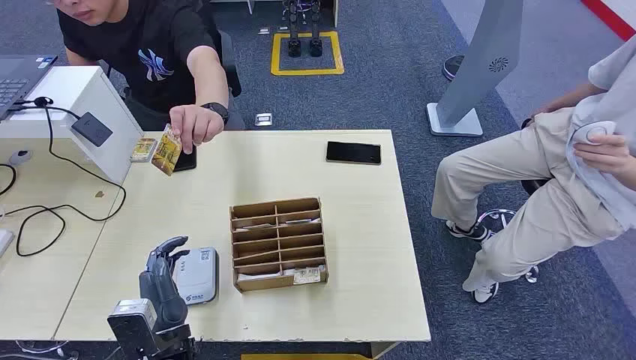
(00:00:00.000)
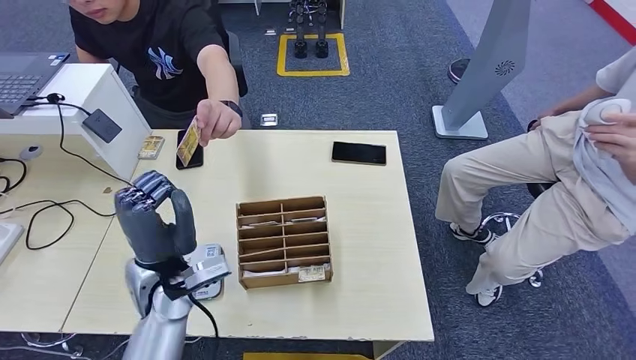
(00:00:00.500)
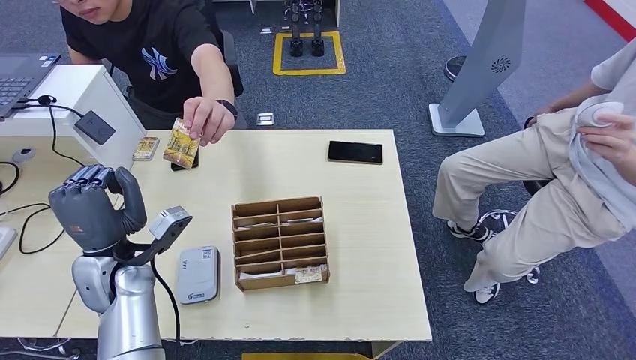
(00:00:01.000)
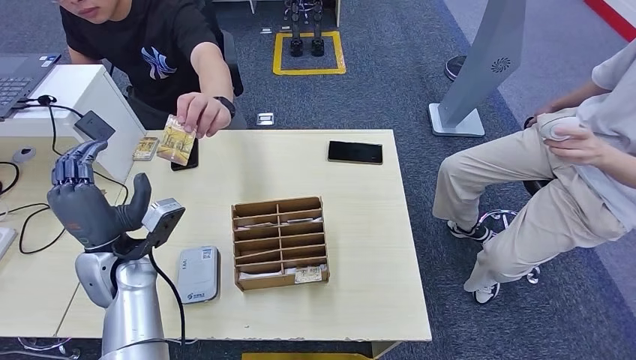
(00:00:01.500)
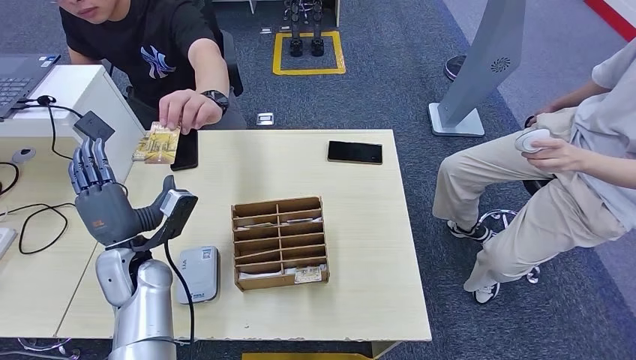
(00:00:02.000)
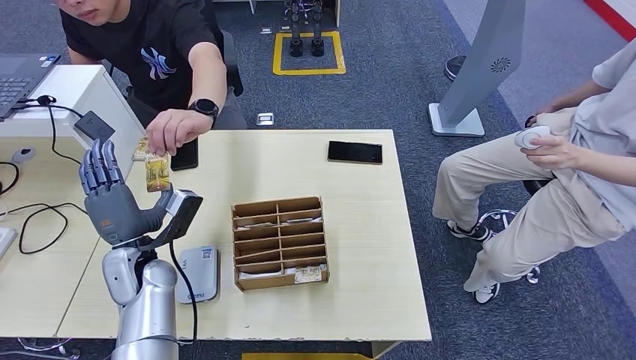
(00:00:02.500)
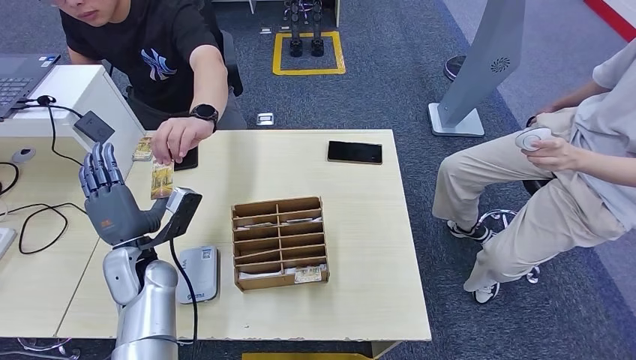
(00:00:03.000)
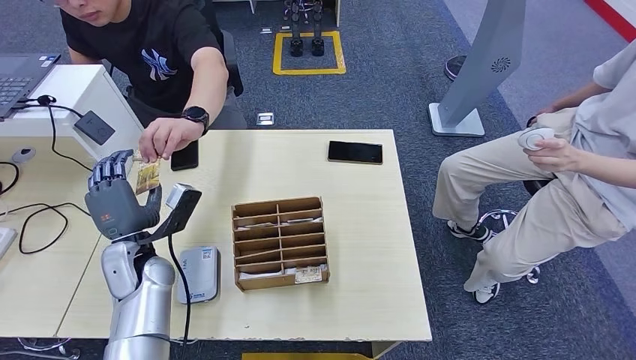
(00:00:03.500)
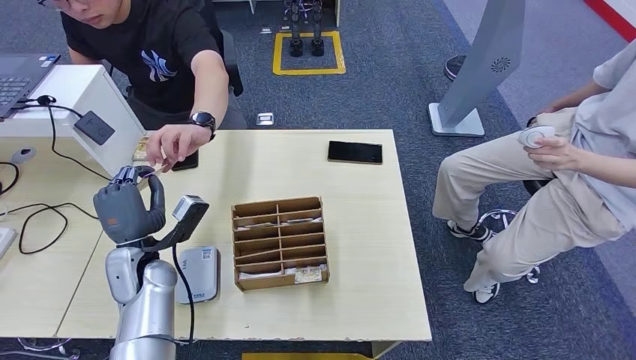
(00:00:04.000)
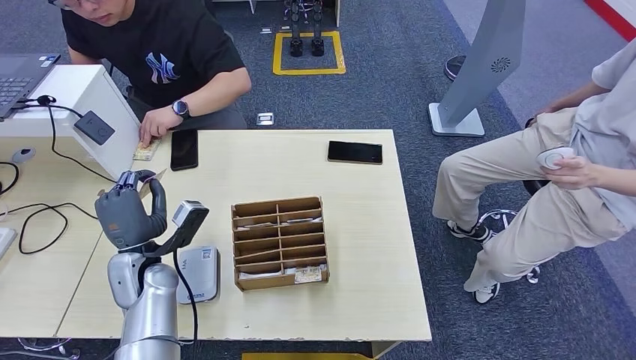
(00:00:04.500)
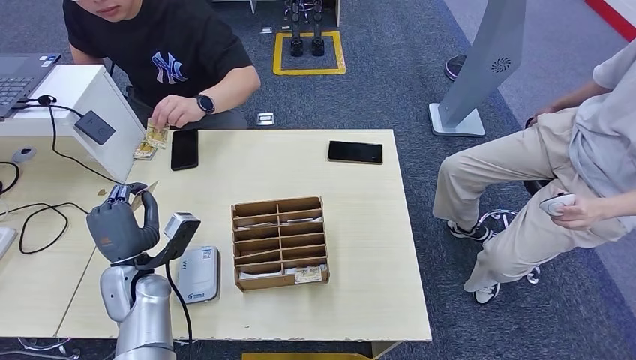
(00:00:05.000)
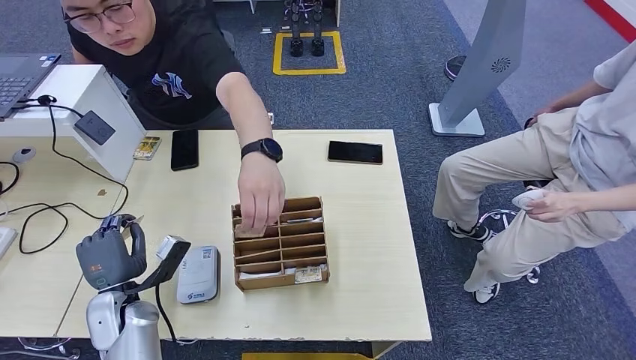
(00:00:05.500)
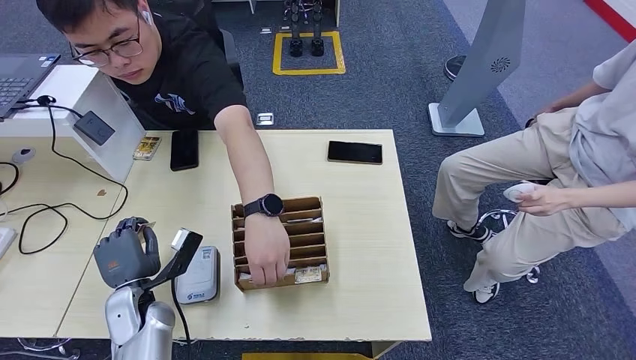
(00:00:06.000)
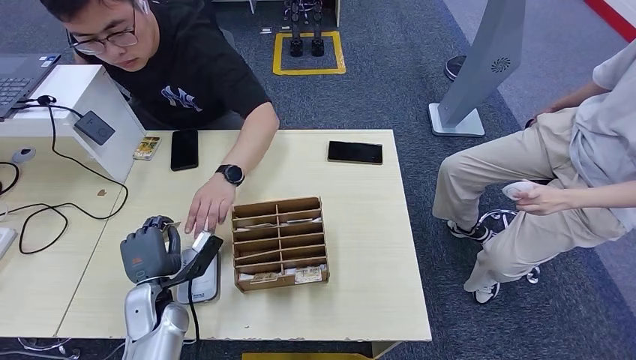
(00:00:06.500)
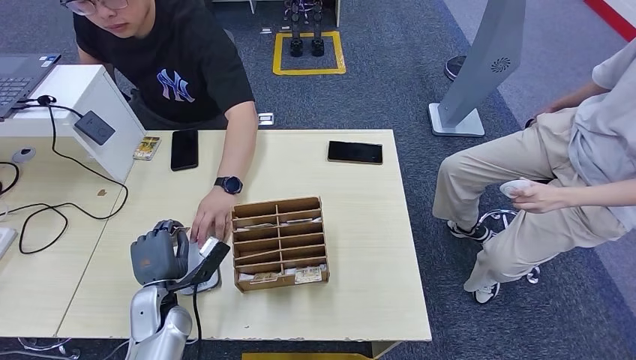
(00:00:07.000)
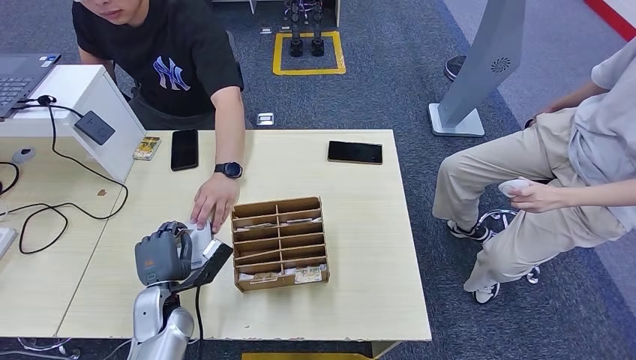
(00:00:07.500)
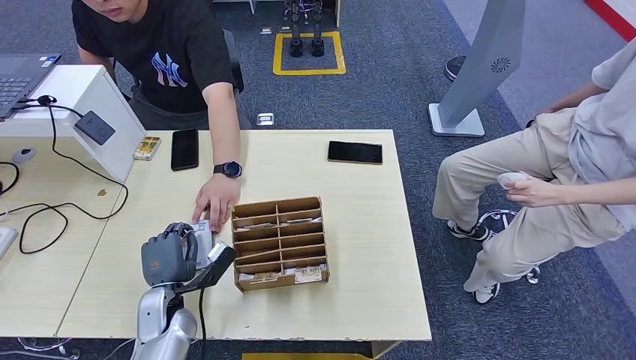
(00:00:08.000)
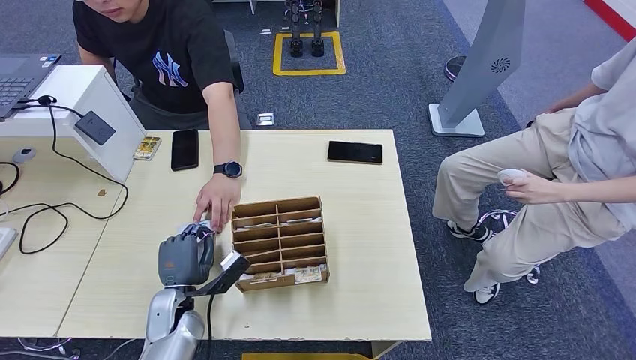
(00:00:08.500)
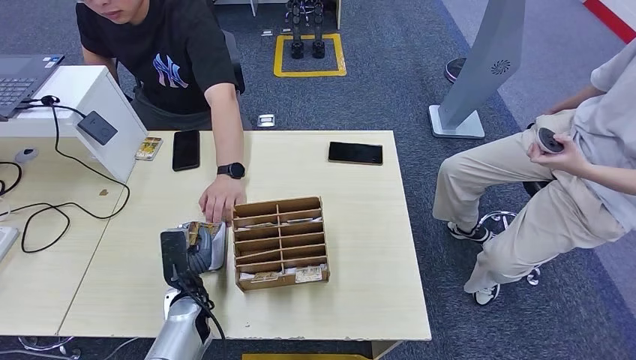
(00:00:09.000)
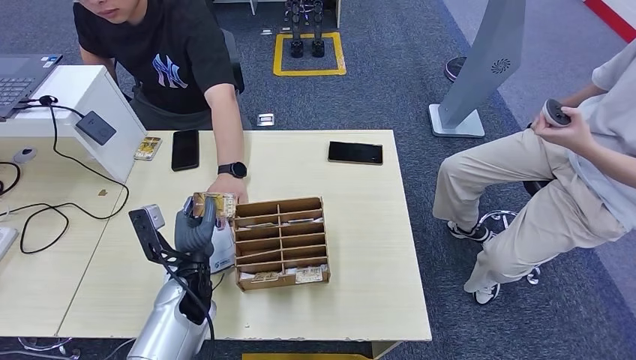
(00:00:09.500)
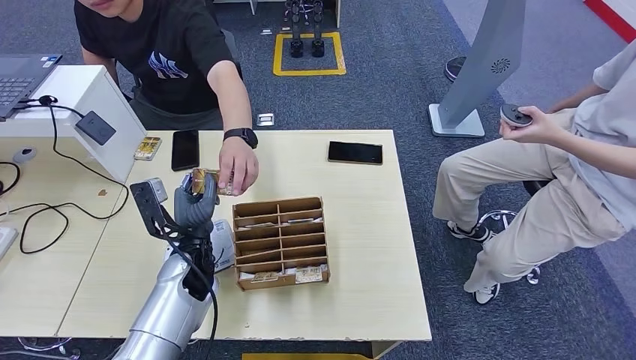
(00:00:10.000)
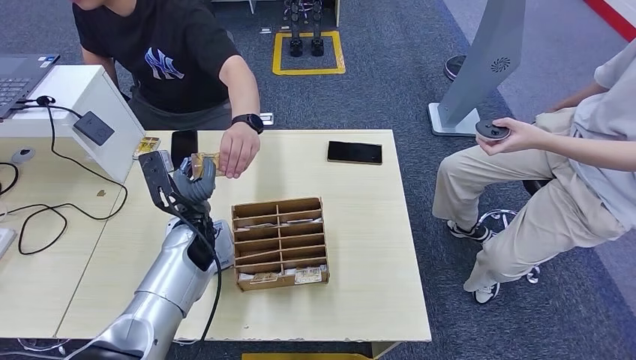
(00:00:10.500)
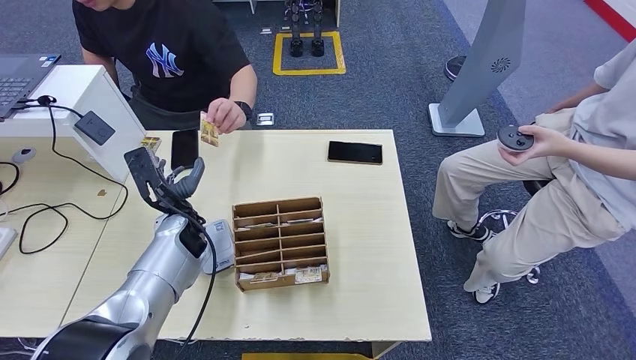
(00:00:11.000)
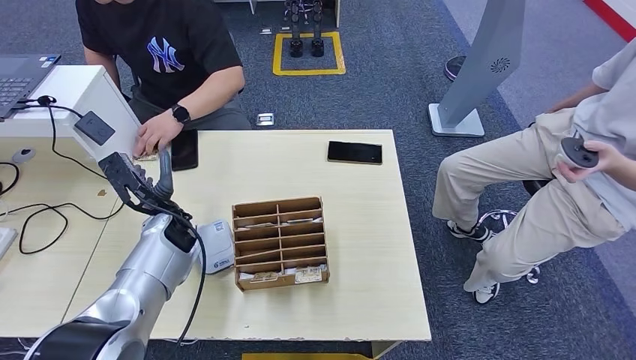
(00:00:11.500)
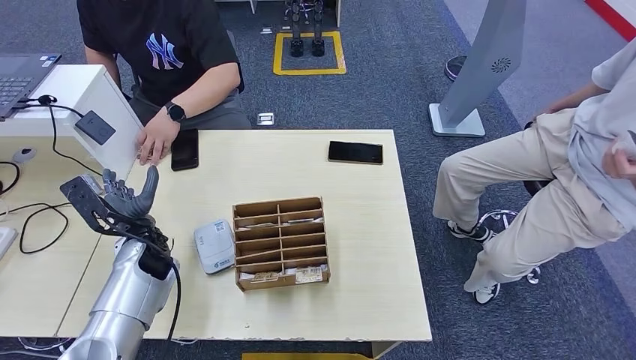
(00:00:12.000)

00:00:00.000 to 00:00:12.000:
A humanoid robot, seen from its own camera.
Step, 00:00:00.000 to 00:00:05.000: Take the ID card from the person's hand.
Step, 00:00:05.500 to 00:00:07.500: Place the ID card on the card reader.
Step, 00:00:08.000 to 00:00:10.500: Hand the ID card to the person.
00:00:02.000 to 00:00:04.000: The hands move only a little.
00:00:04.000 to 00:00:06.000: The left hand heads downward, covering approximately 5 cm.
00:00:06.000 to 00:00:08.000: The left hand shifts by approximately 5 cm.
00:00:08.000 to 00:00:10.000: The left hand is displaced upward, to the right and forward by about 10 cm.
00:00:10.000 to 00:00:12.000: The left hand goes some 10 cm to the left.

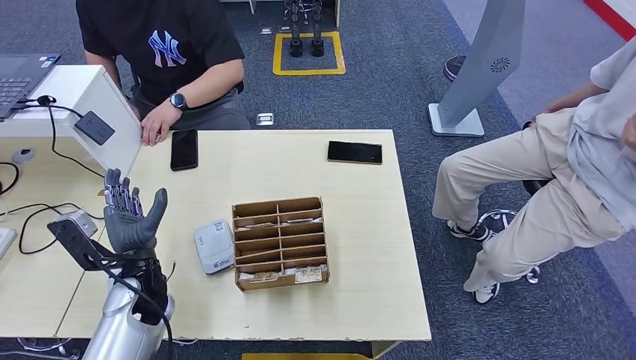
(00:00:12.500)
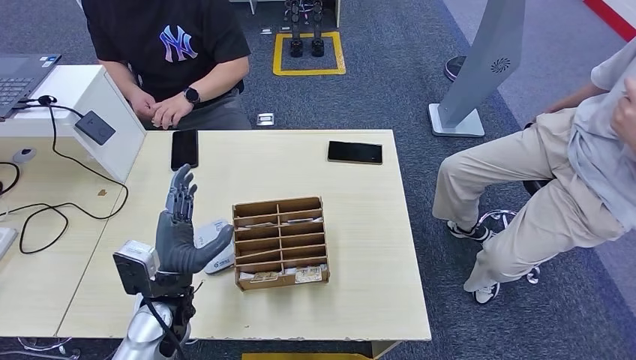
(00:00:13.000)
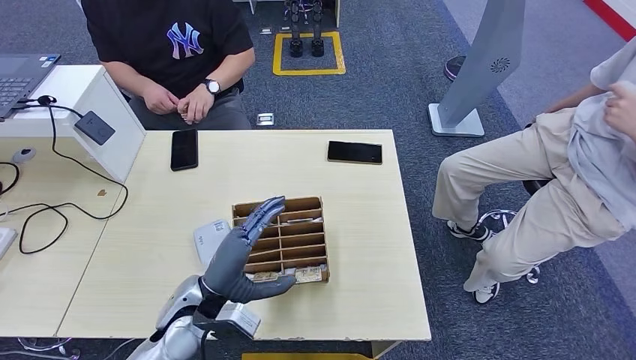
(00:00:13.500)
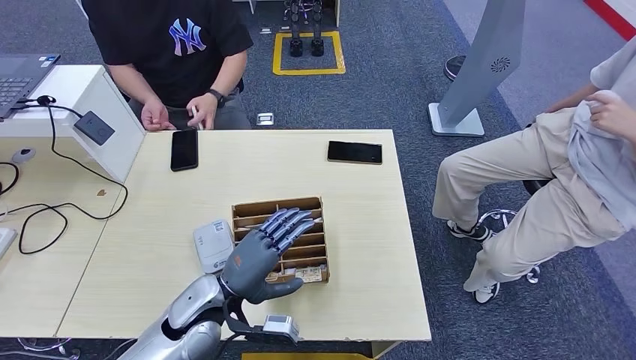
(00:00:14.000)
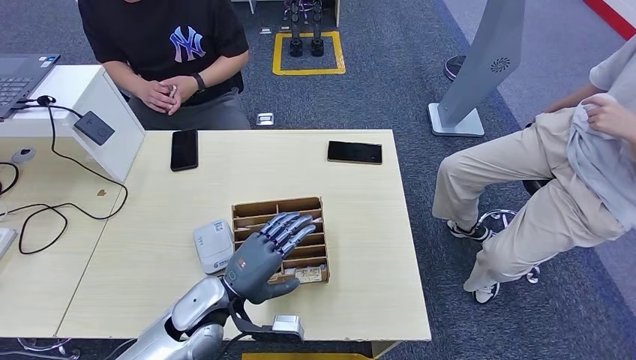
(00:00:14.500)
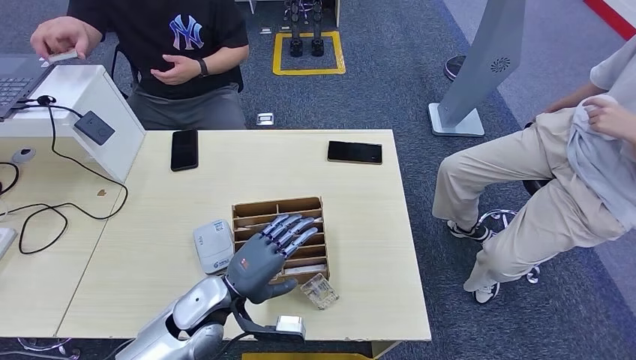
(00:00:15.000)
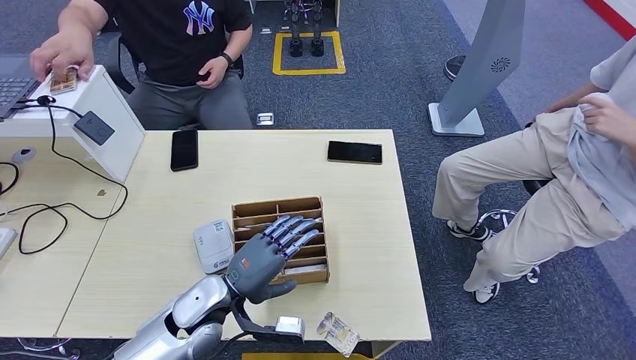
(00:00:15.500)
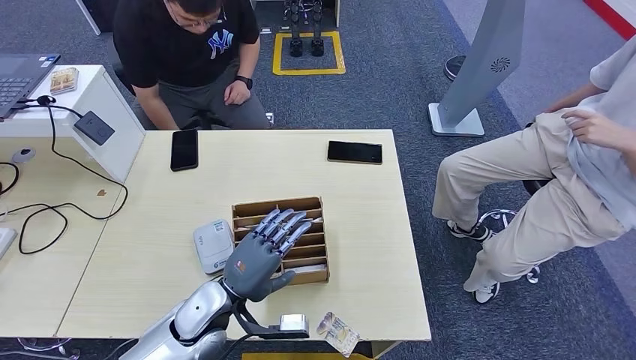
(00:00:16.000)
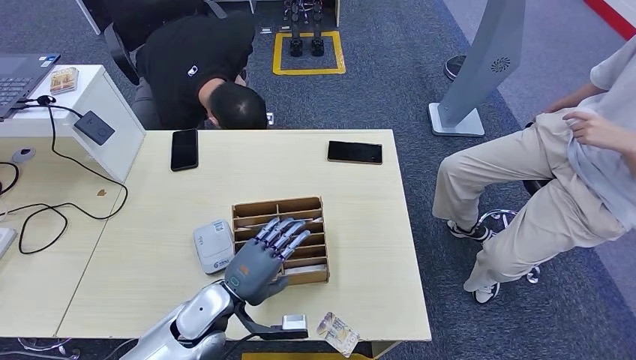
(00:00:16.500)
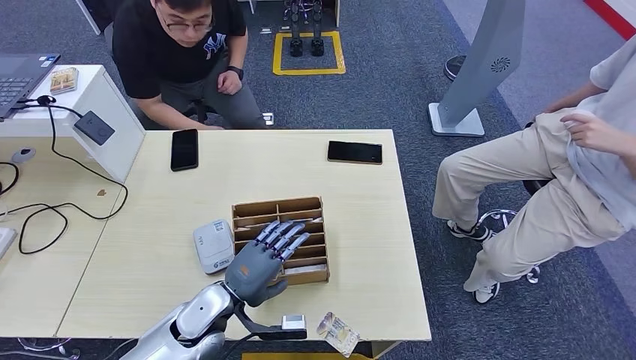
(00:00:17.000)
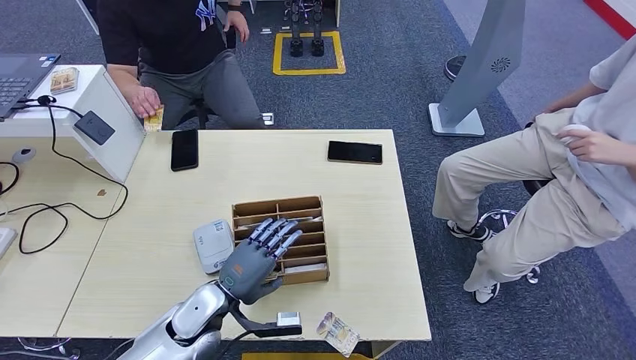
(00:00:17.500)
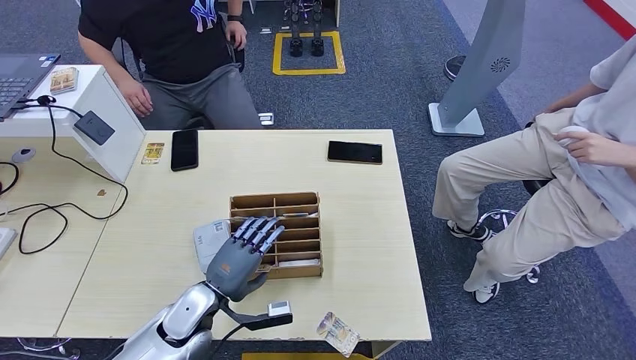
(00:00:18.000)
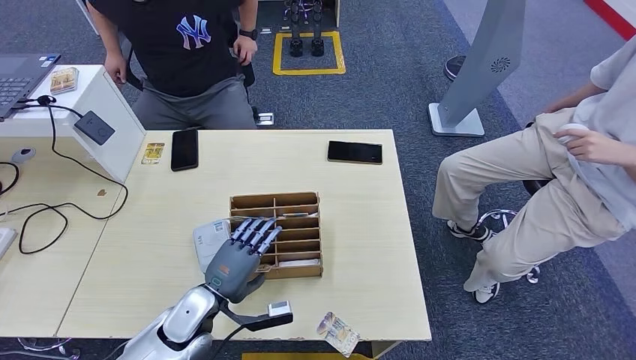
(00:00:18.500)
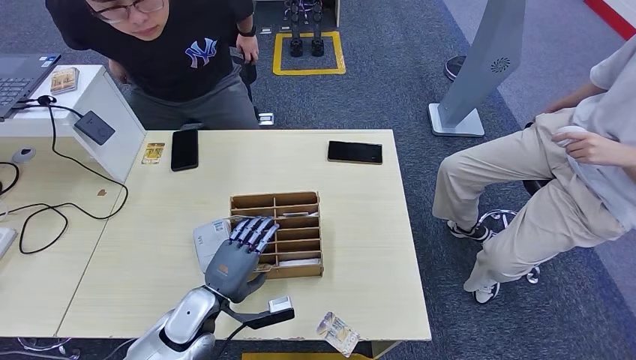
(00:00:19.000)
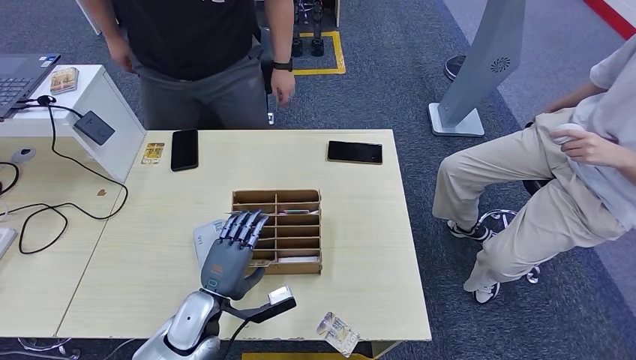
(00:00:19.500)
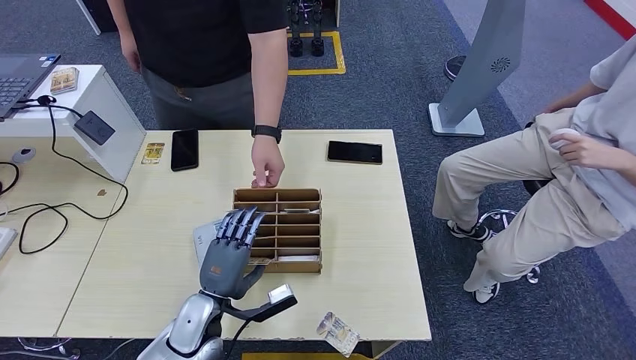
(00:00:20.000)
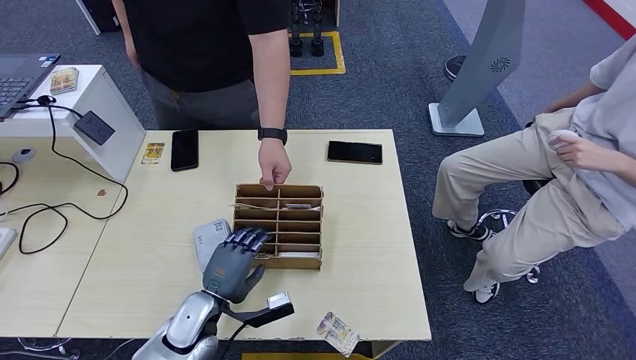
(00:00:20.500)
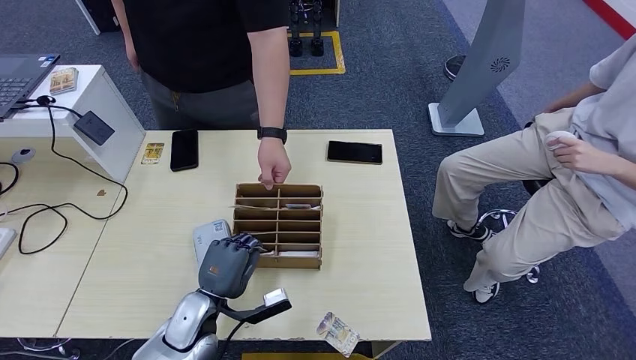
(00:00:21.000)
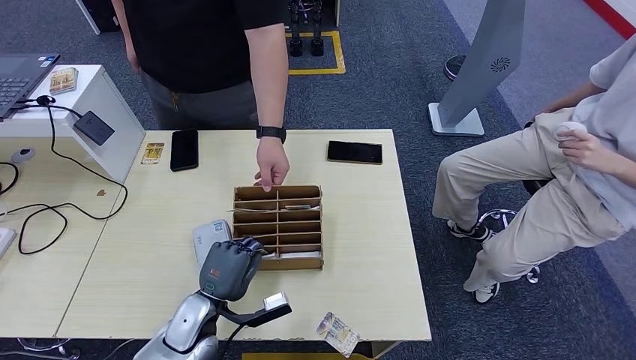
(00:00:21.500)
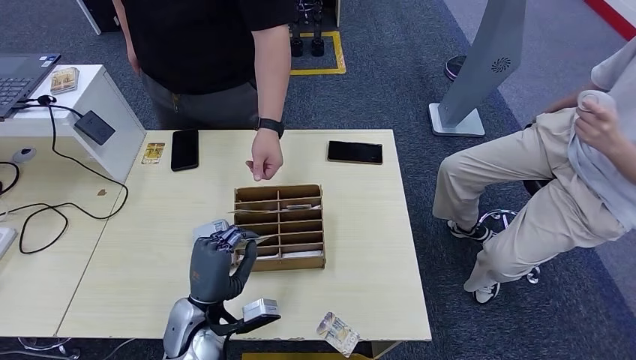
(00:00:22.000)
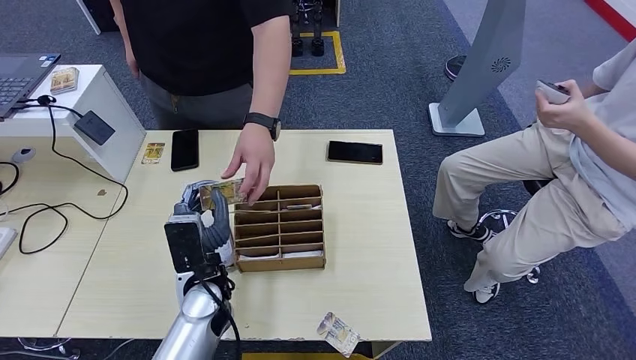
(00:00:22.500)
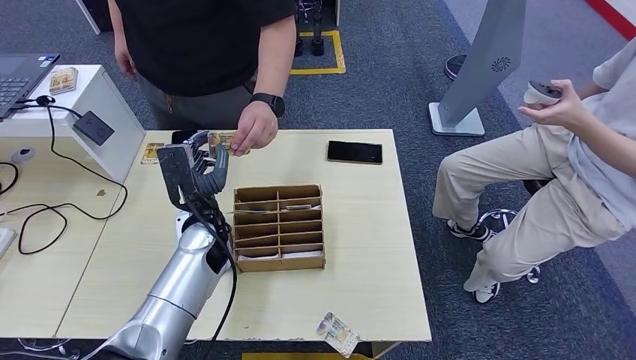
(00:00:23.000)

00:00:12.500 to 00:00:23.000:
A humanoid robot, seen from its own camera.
Step, 00:00:12.500 to 00:00:21.500: Pick up the room key from the key card box.
Step, 00:00:22.000 to 00:00:23.000: Hand the room key to the person.
00:00:12.500 to 00:00:14.500: The left hand goes approximately 10 cm to the right and backward.
00:00:14.500 to 00:00:16.500: The hands stay close to where they were, moving slightly.
00:00:16.500 to 00:00:19.000: The hands stay close to where they were, moving slightly.
00:00:19.000 to 00:00:21.000: The hands move only a little.
00:00:21.000 to 00:00:23.000: The left hand moves forward and upward, approximately 20 cm.
